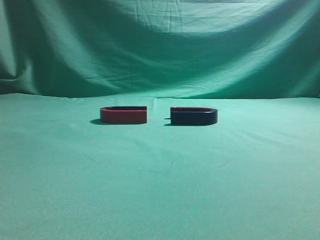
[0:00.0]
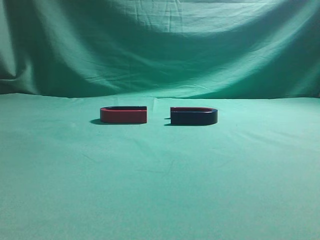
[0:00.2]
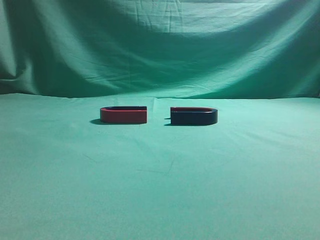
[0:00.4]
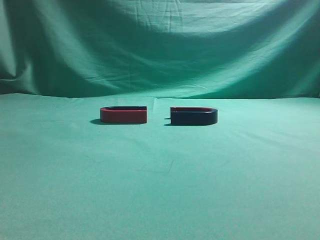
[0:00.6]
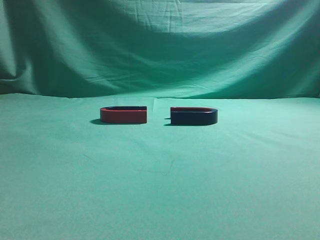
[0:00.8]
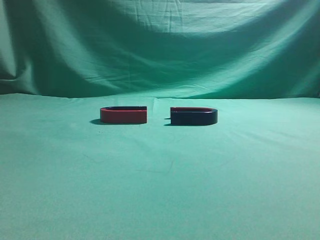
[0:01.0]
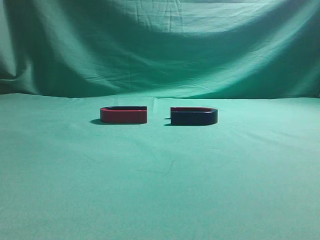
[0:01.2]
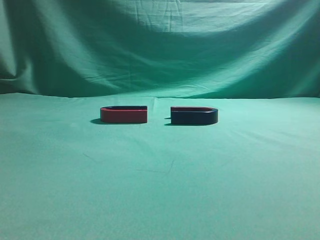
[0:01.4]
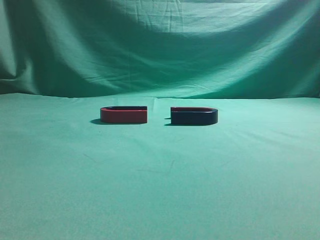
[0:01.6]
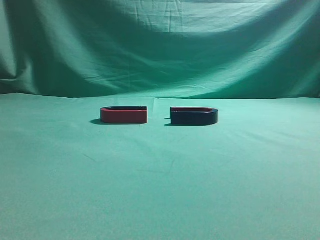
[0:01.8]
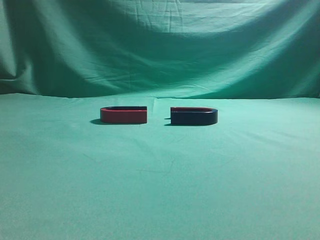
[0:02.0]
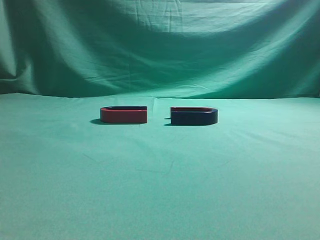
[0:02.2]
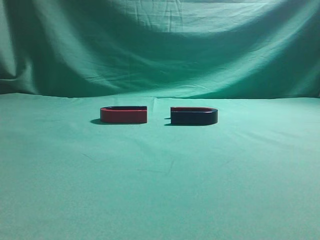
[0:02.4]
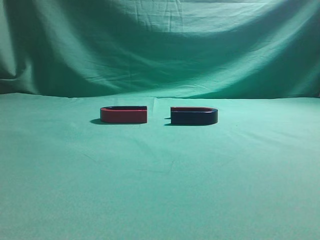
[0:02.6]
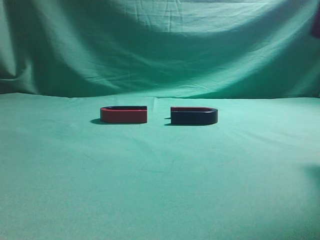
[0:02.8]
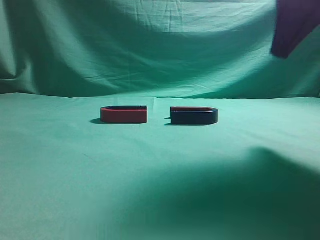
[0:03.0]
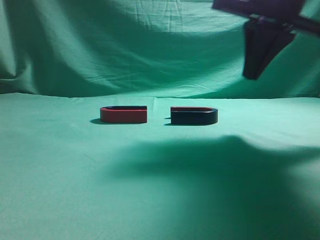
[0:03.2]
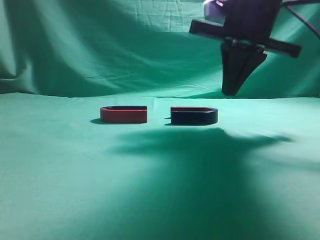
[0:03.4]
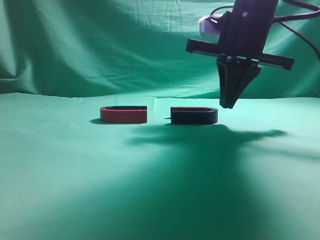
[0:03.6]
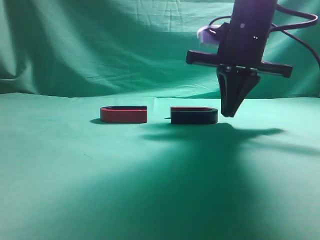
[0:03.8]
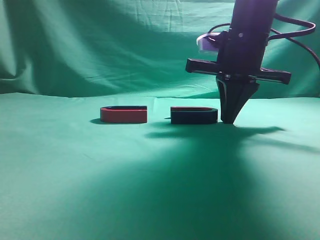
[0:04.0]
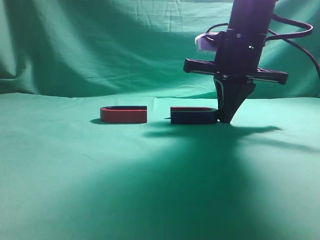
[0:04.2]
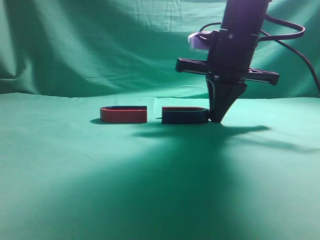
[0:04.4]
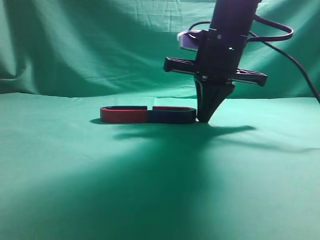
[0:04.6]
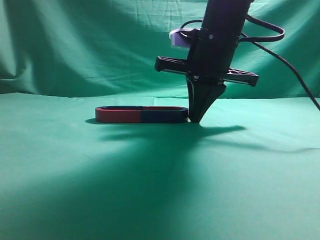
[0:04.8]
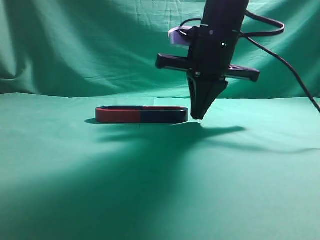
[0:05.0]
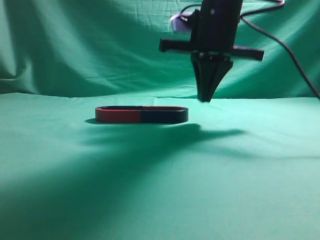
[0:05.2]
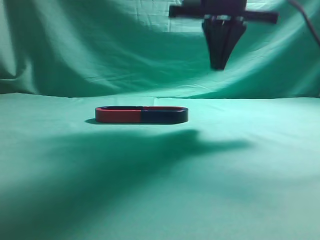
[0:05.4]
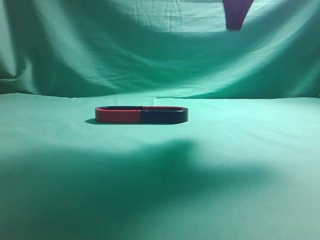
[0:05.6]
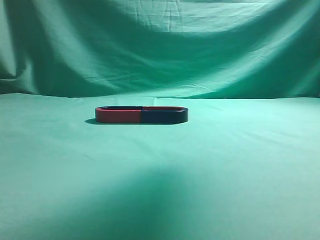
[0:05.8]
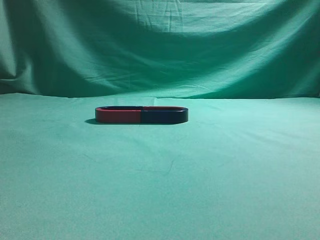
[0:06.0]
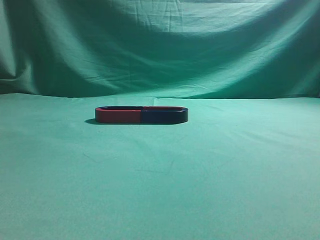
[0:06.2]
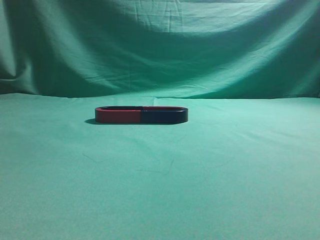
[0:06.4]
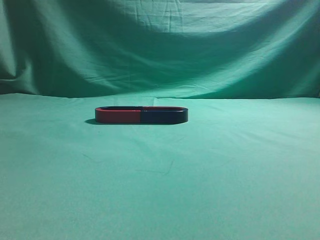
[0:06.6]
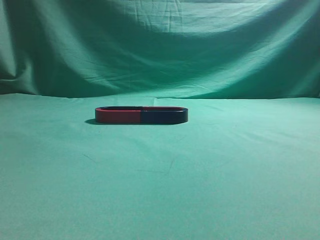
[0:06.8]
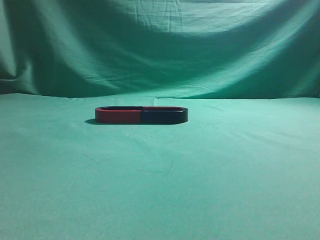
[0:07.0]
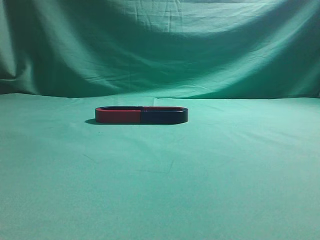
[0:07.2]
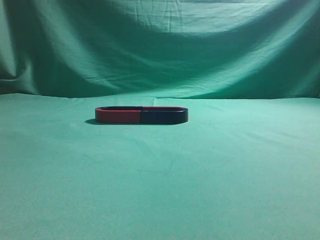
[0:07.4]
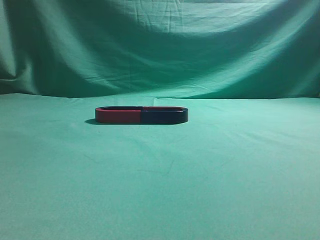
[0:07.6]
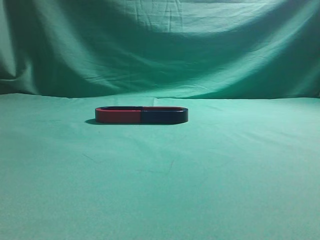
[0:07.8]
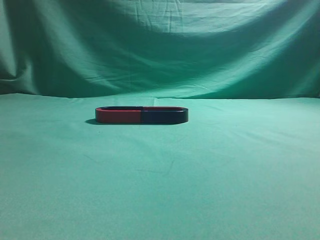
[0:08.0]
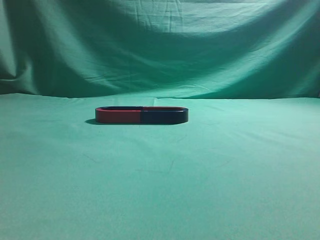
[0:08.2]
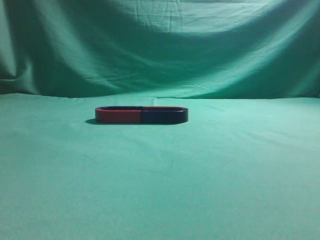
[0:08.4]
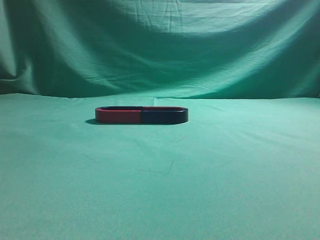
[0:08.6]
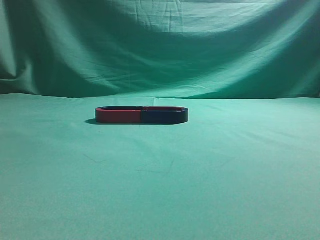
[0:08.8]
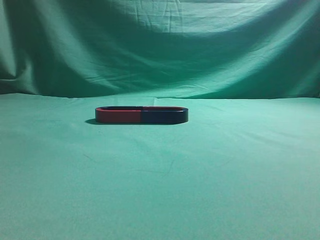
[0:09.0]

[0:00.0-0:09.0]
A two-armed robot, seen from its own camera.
Task of the whole recording: push the magnet on the table from its original position to another position.
Step, 0:00.0 to 0:05.0: Push the magnet on the right to connect the magnet on the left.
0:01.6 to 0:03.0: The right gripper travels forward by approximately 25 cm.
0:03.0 to 0:04.4: The right gripper heads forward, downward and to the left, covering approximately 15 cm.
0:04.4 to 0:06.0: The right gripper goes about 25 cm upward and backward.
